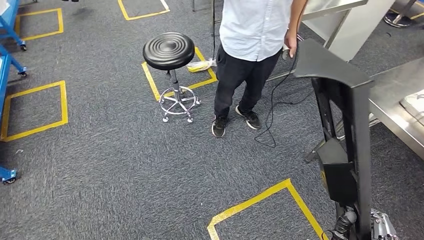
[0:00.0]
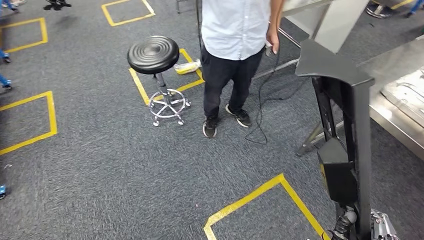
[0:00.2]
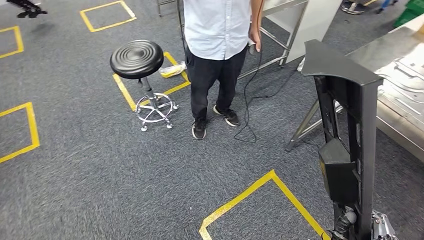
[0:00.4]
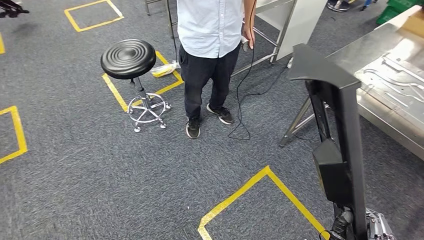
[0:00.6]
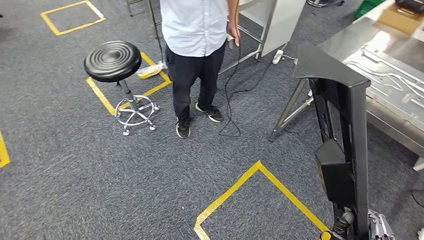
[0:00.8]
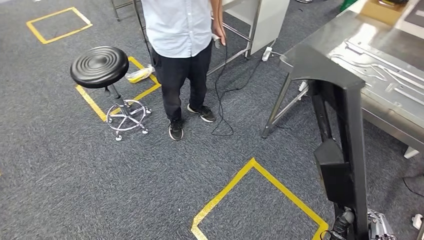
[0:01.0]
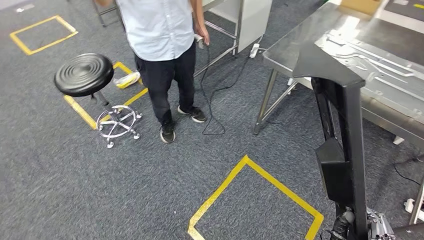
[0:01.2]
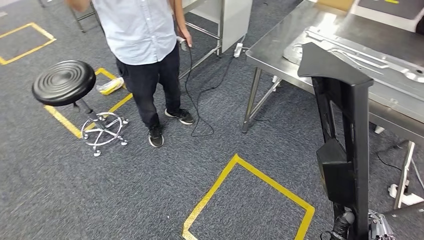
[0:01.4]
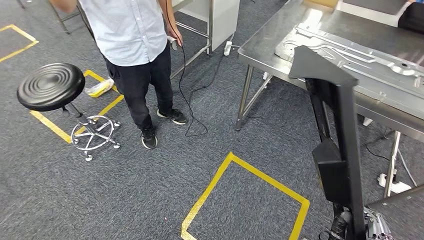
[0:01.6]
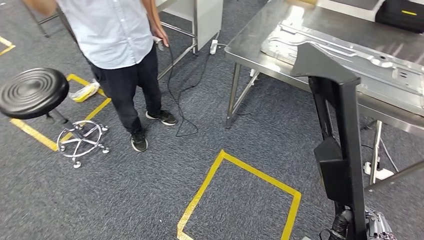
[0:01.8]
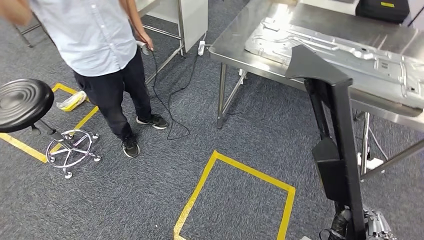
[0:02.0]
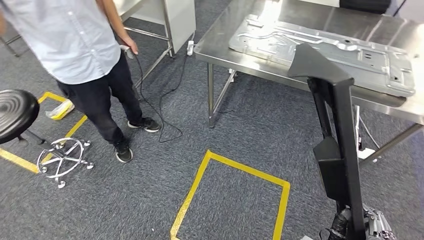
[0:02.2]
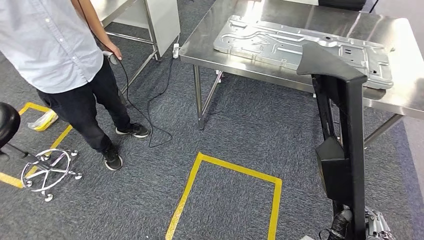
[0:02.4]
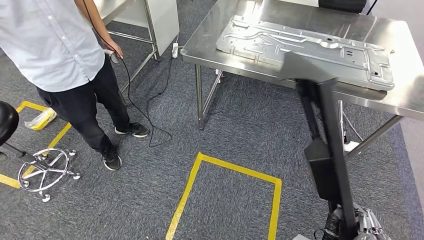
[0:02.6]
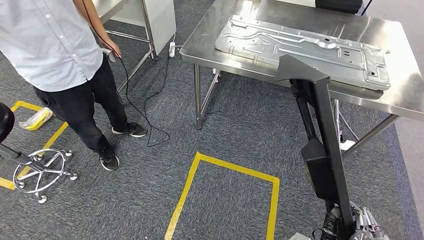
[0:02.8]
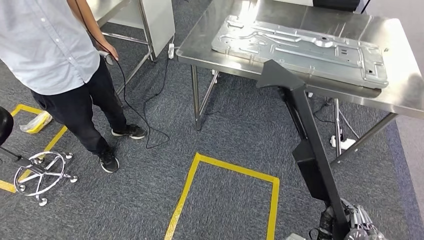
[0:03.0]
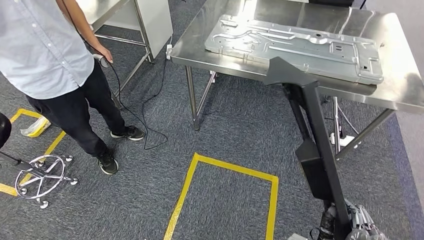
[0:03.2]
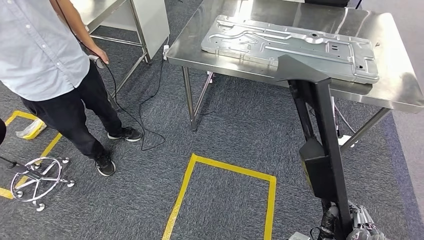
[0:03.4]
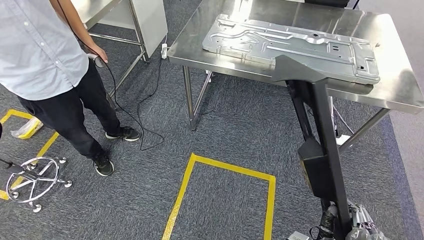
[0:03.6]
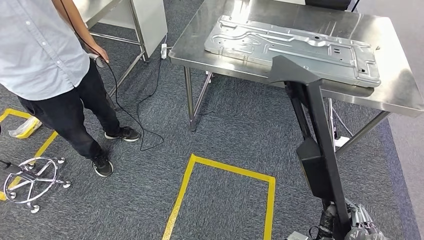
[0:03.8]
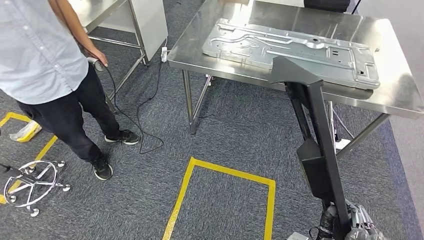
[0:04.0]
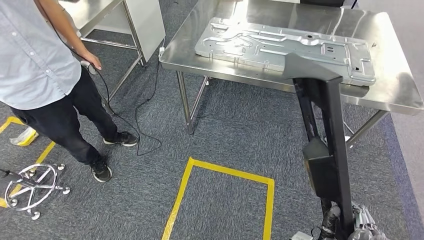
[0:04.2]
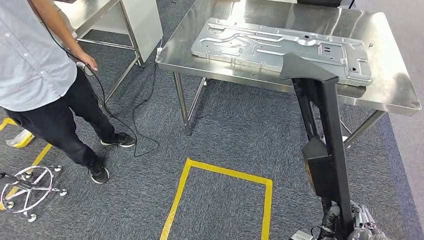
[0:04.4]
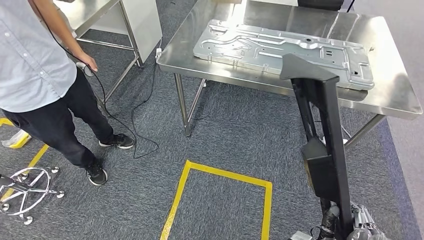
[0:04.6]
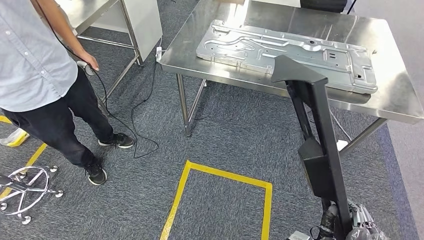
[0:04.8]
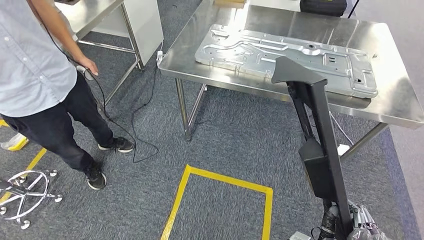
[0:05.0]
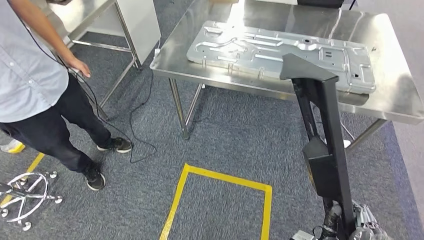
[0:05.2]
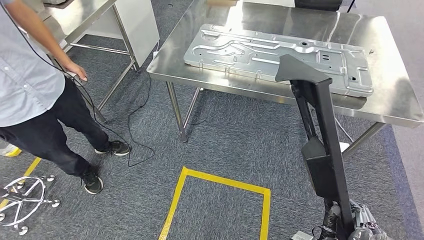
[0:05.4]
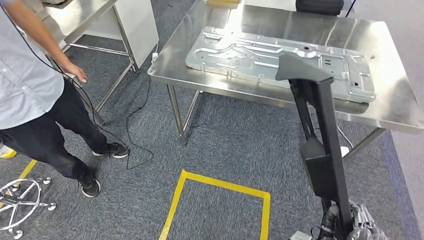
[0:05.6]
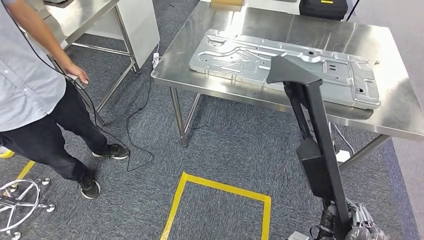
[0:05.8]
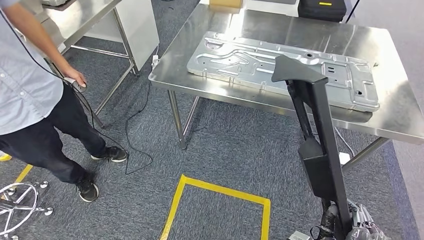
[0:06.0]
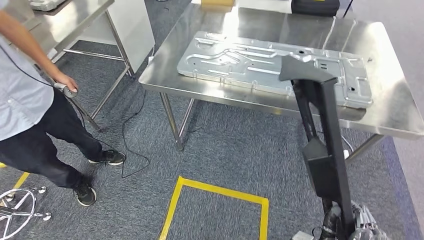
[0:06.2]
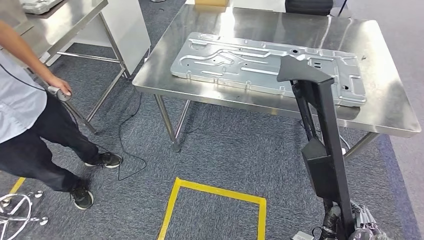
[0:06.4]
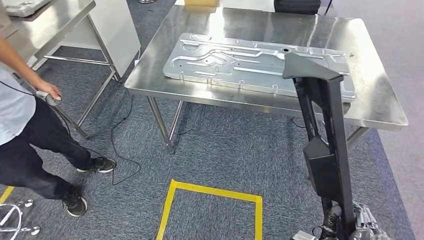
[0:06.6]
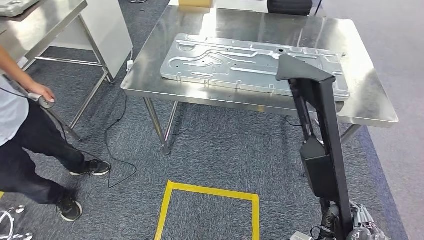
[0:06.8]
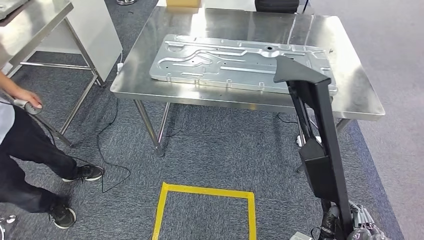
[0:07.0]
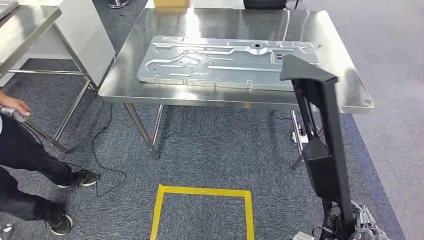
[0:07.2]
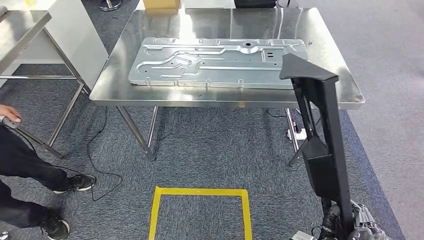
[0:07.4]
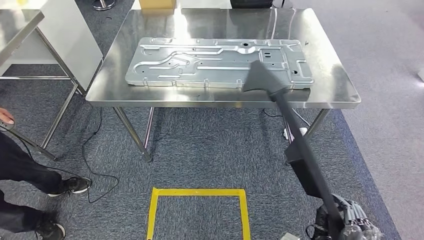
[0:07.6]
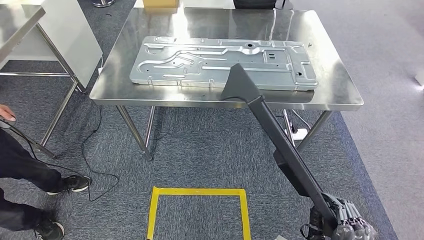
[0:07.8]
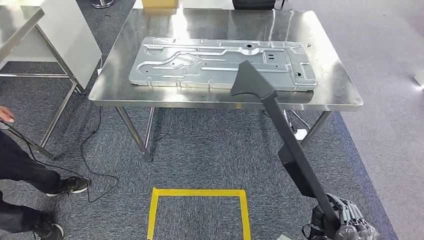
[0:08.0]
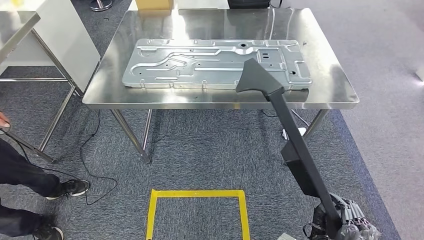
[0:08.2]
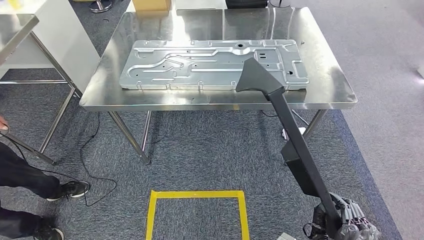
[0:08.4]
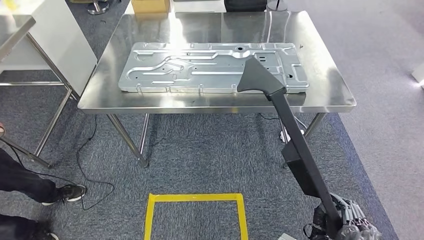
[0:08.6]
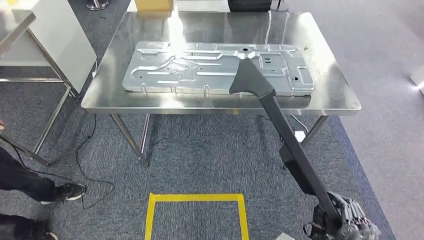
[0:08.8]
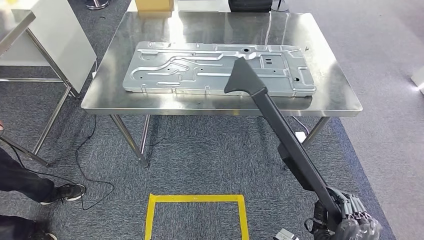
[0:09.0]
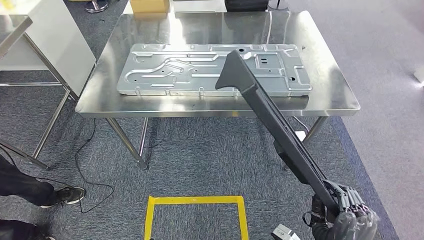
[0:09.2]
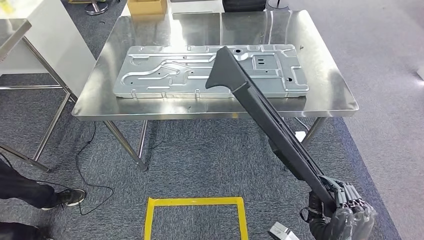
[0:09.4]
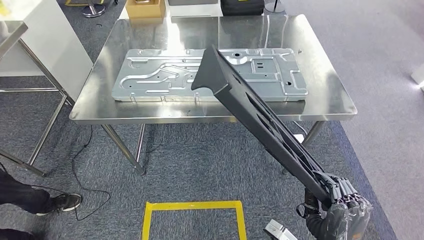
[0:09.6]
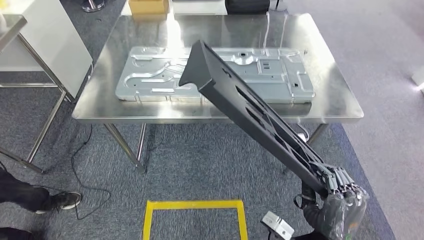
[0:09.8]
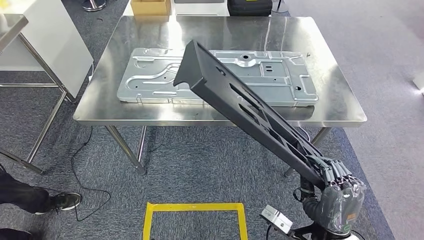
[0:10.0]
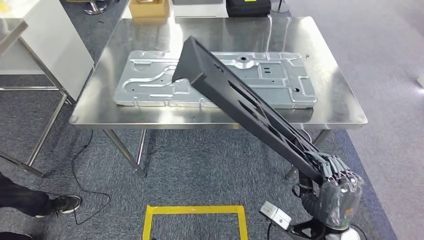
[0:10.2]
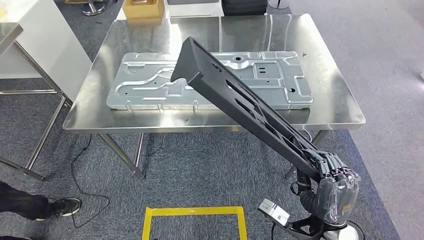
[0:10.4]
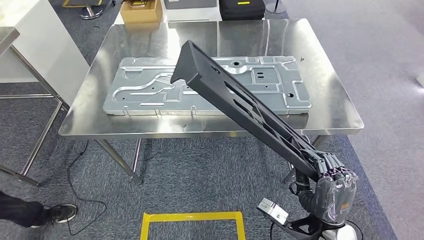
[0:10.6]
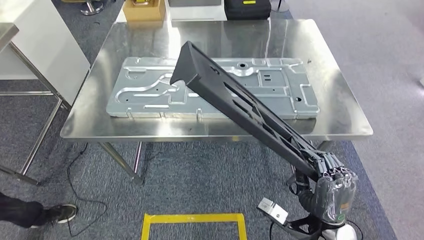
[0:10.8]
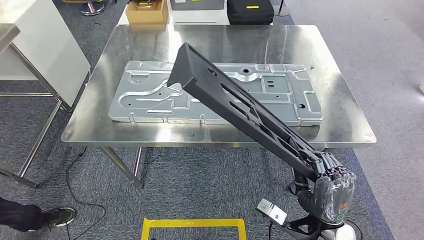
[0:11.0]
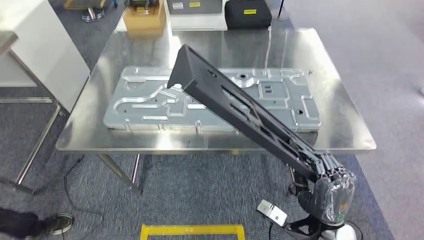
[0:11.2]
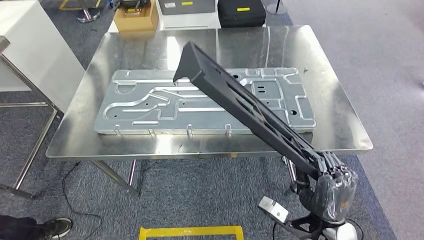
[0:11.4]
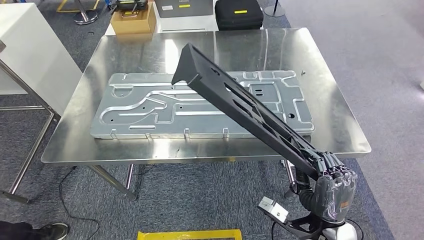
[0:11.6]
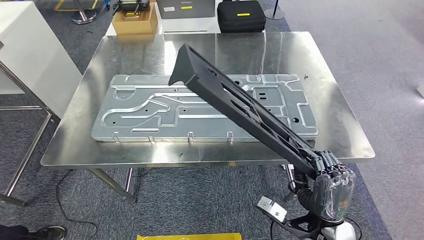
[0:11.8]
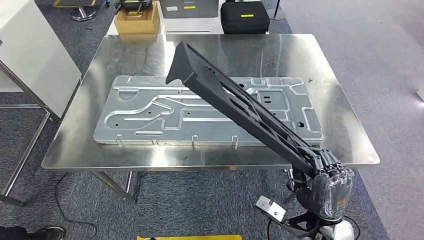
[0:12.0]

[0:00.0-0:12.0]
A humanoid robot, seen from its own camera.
Step, 0:00.0 to 0:07.2: Move the large parts to the workbench.

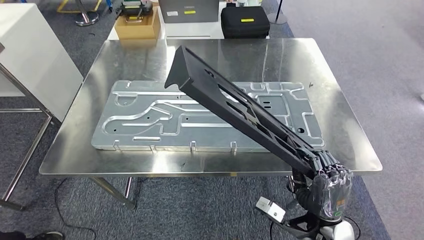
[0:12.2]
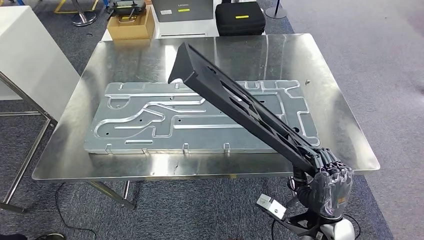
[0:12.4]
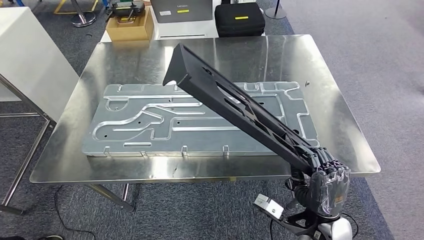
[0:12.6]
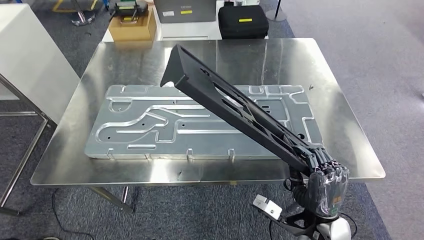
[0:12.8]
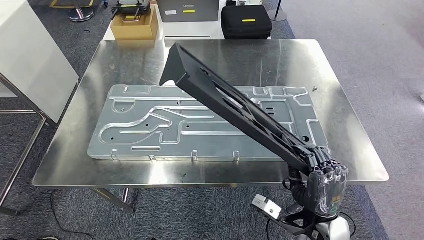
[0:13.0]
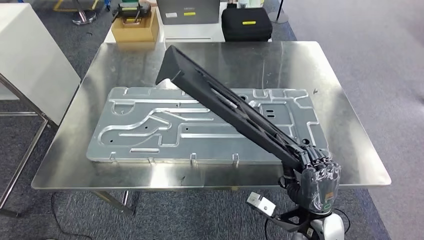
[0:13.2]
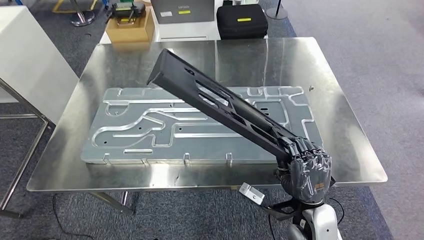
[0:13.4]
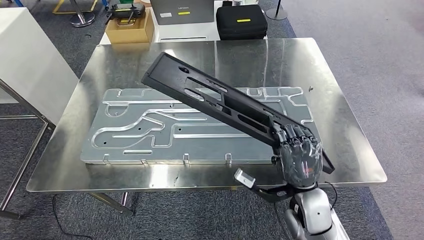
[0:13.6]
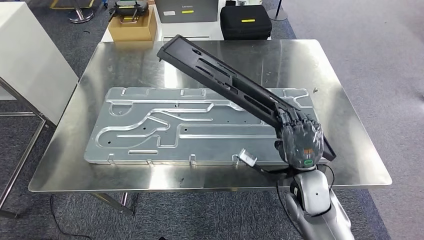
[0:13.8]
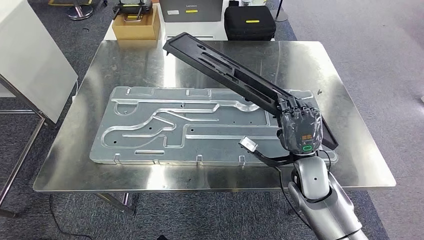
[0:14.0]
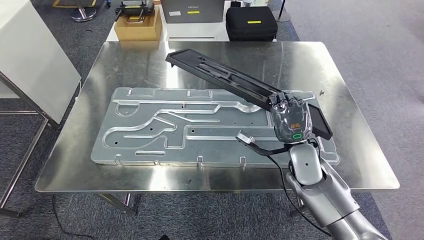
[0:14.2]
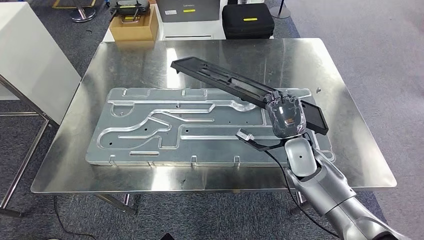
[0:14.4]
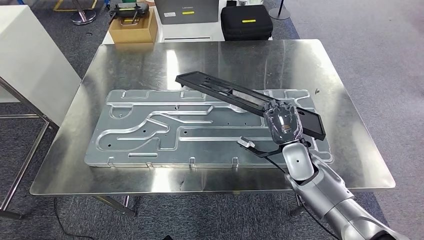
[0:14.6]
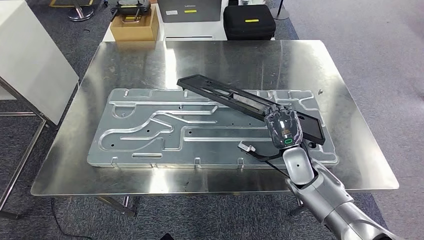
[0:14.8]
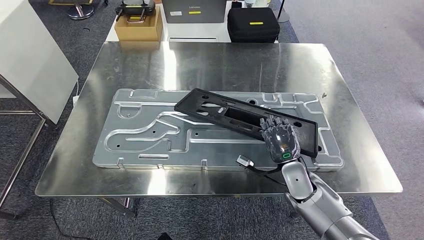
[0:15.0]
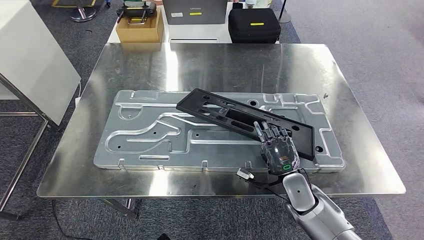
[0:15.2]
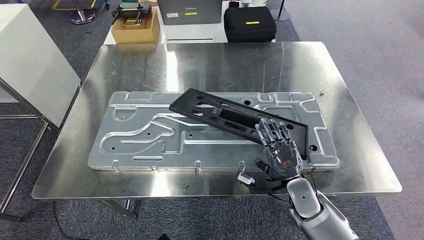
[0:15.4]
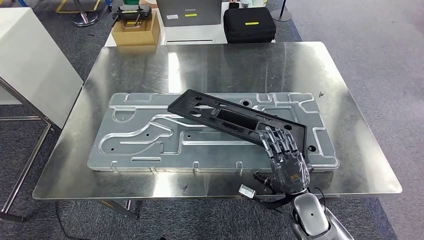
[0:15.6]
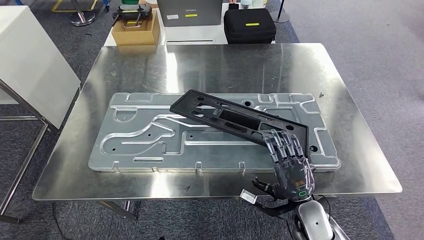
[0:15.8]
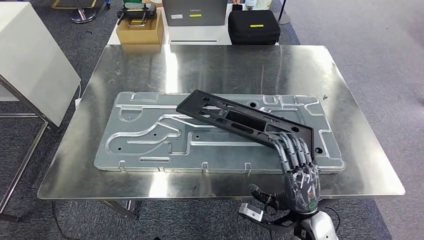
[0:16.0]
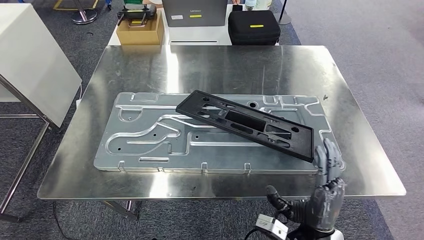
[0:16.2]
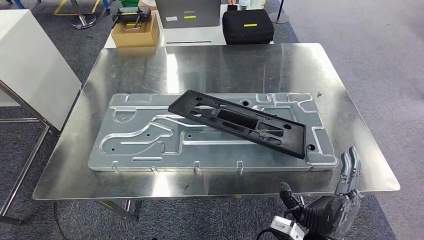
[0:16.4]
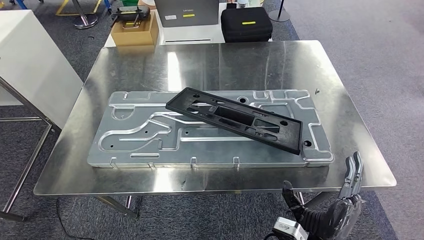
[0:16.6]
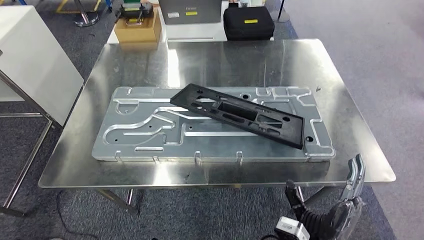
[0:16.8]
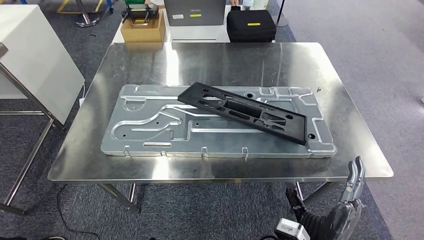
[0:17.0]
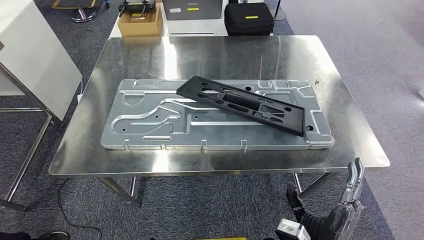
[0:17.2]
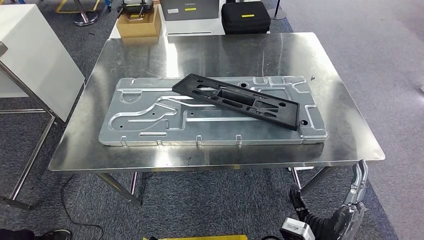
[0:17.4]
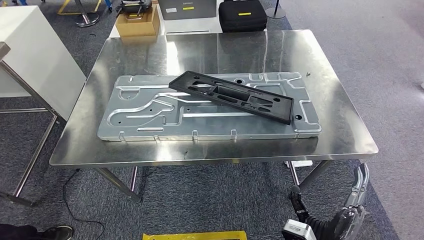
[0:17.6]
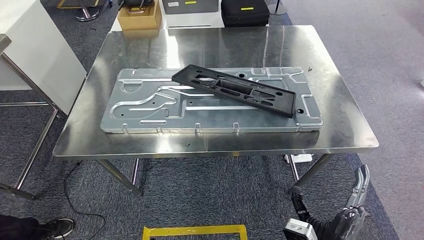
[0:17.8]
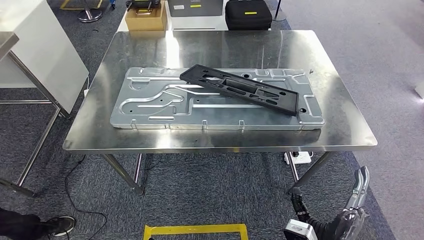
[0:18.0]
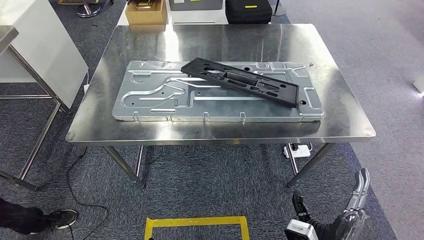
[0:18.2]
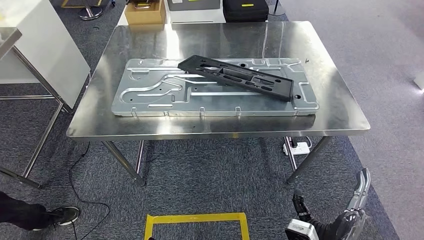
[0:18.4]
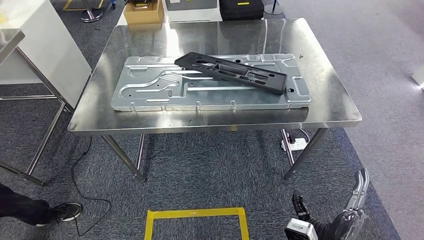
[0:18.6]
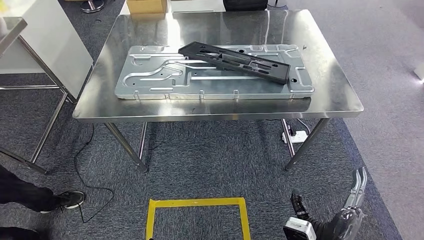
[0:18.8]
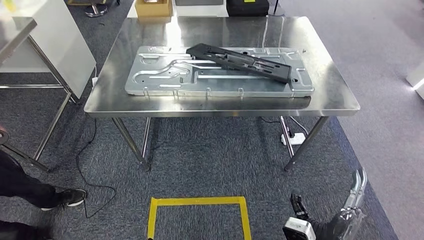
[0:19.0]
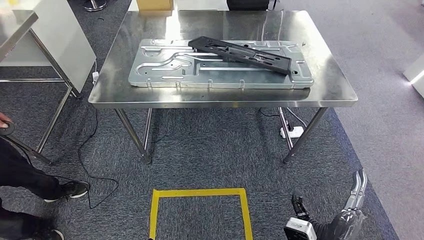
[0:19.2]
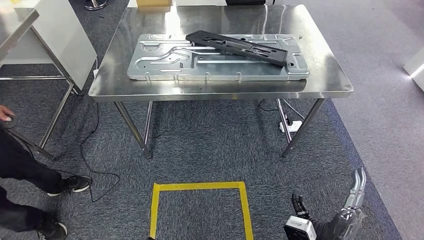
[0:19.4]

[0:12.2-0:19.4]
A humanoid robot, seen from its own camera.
Step, 0:12.2 to 0:18.4: Insert the large parts into the corresponding slots on the workbench.
